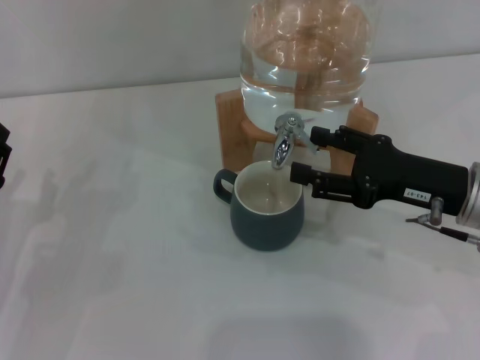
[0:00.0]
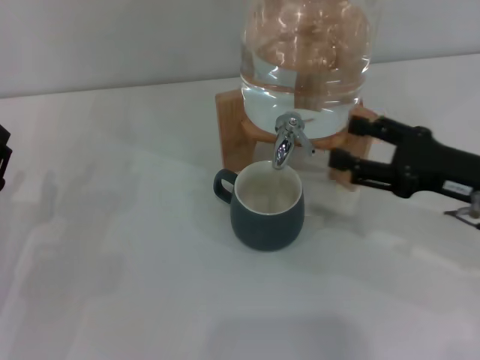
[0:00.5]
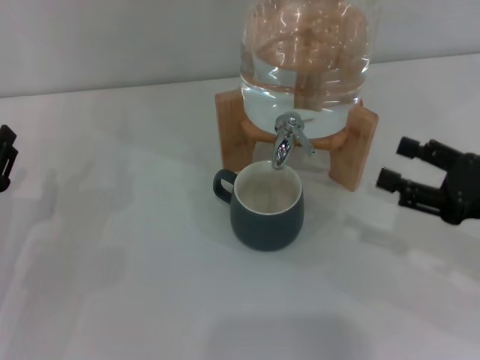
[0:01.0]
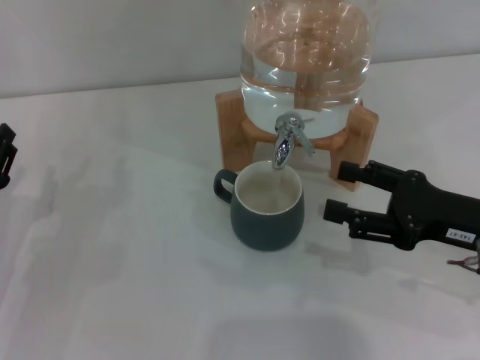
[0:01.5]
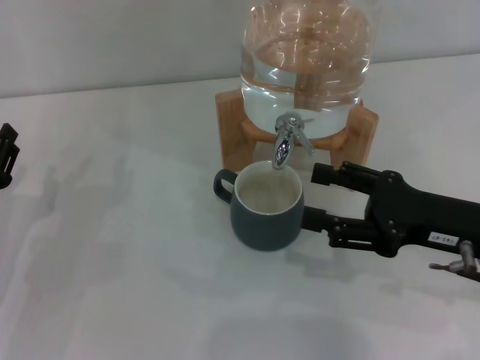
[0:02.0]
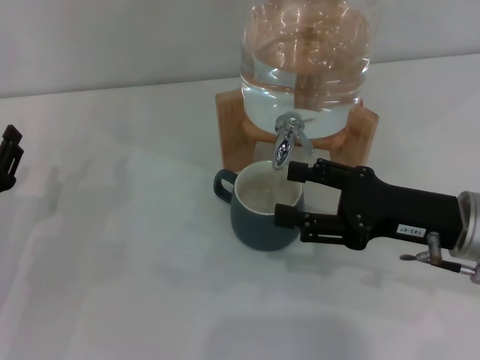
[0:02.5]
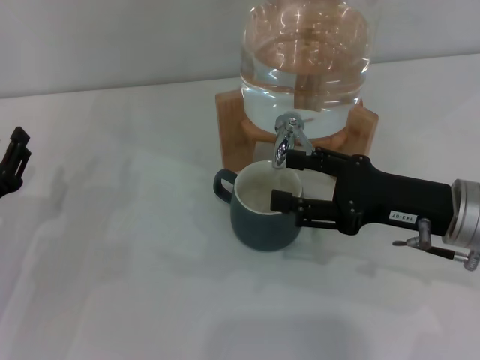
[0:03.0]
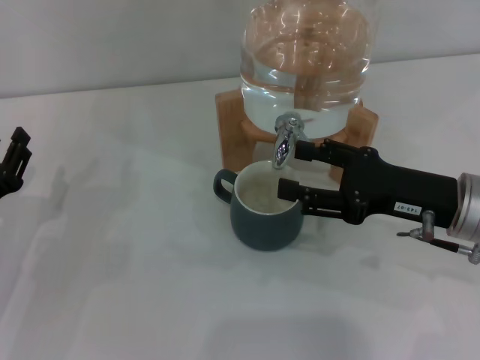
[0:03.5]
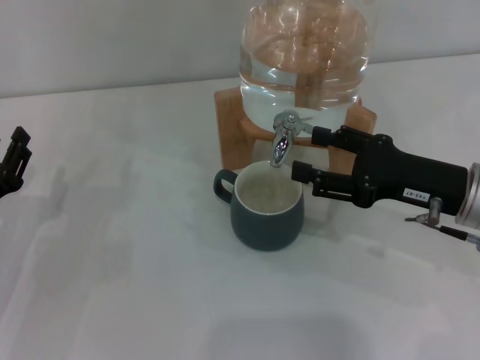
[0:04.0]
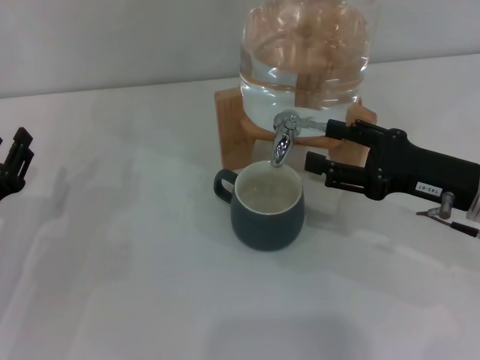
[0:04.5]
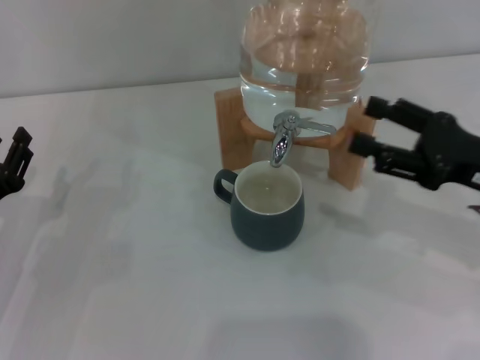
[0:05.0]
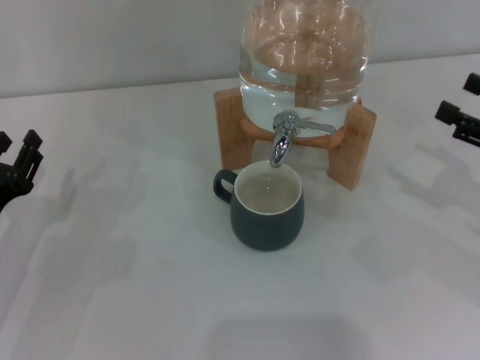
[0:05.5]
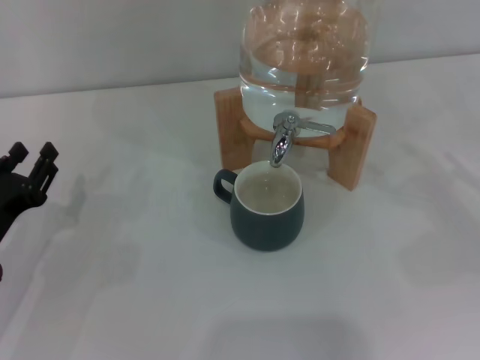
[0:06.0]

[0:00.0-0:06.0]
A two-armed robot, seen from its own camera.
Task of the whole recording: the left gripper pick up the black cup and place it horizontally under the faucet, the right gripper turn on the faucet to fill the cup, and then turn off the faucet.
Step, 0:00.5 to 0:04.5: Close the dispenser valve with the right gripper.
0:02.0 to 0:04.0: The grippers stay close to where they were, moving slightly.
0:04.0 to 0:06.0: The right gripper is displaced to the right by approximately 15 cm.

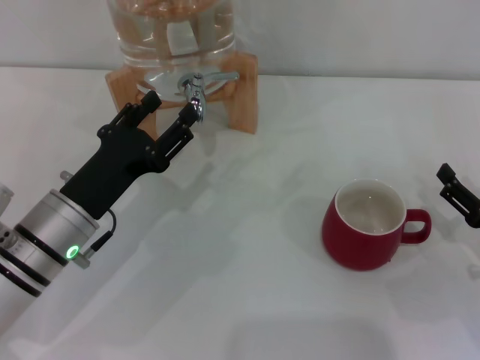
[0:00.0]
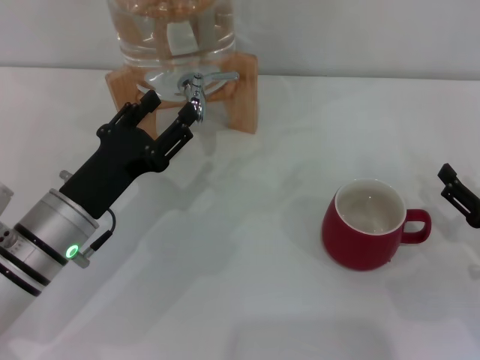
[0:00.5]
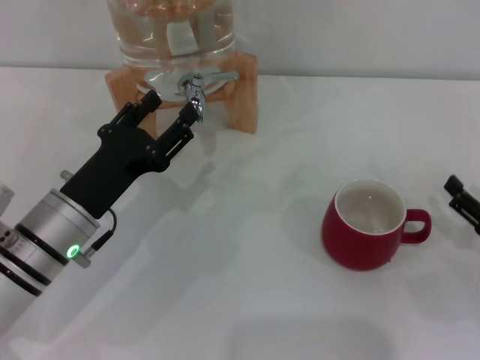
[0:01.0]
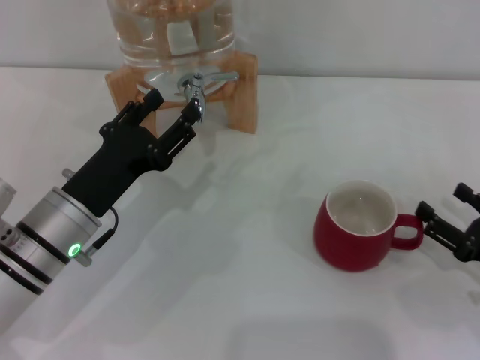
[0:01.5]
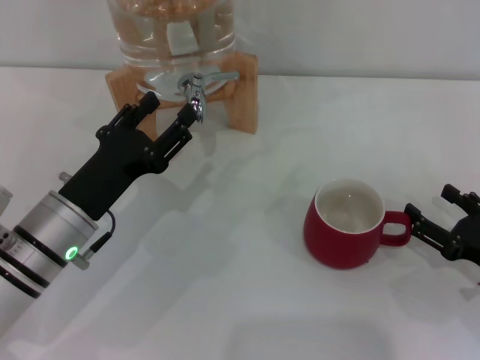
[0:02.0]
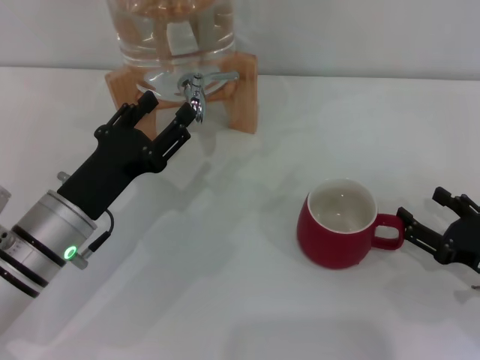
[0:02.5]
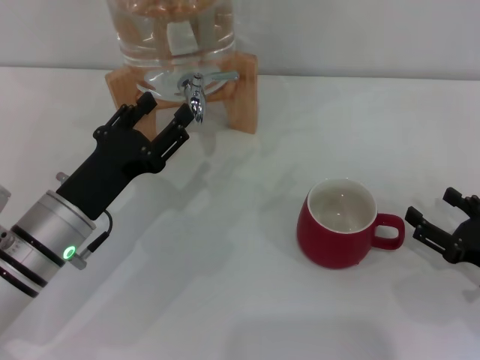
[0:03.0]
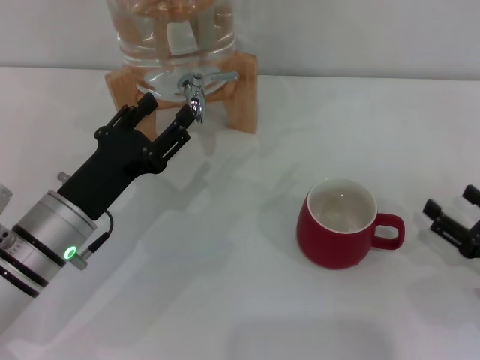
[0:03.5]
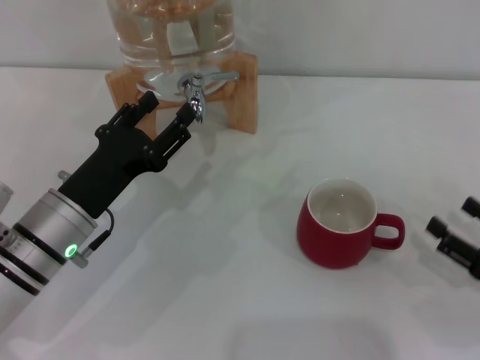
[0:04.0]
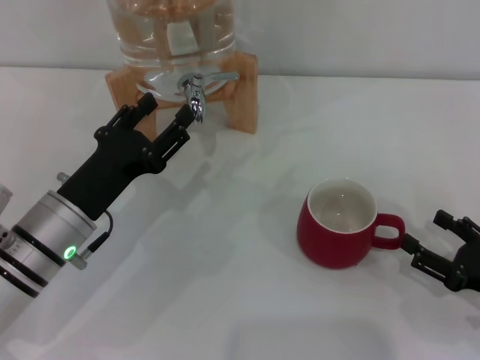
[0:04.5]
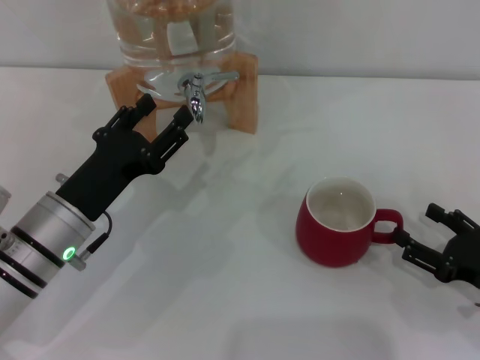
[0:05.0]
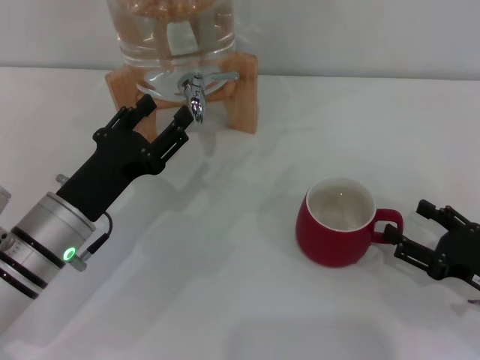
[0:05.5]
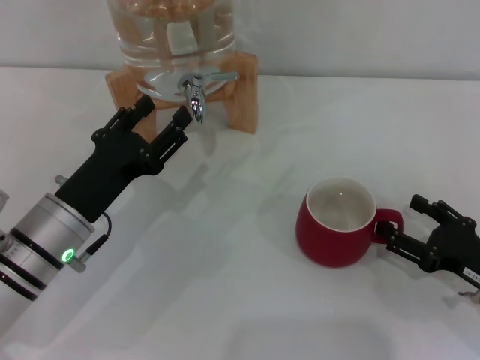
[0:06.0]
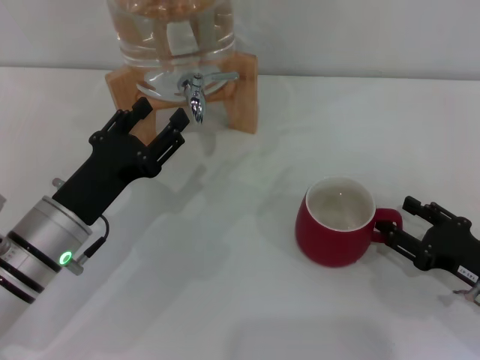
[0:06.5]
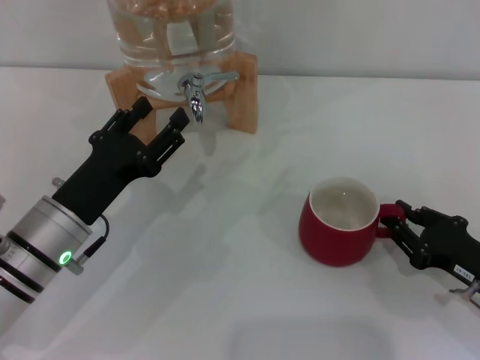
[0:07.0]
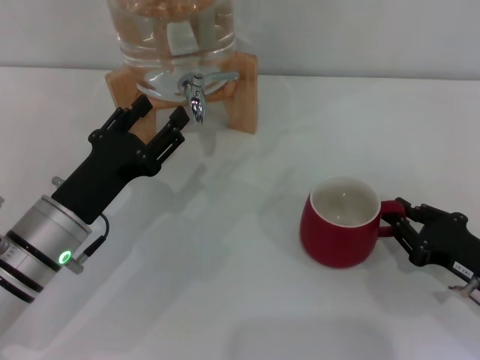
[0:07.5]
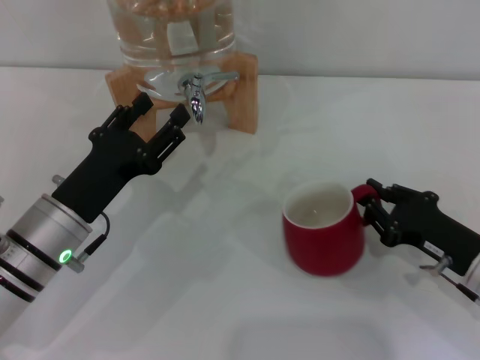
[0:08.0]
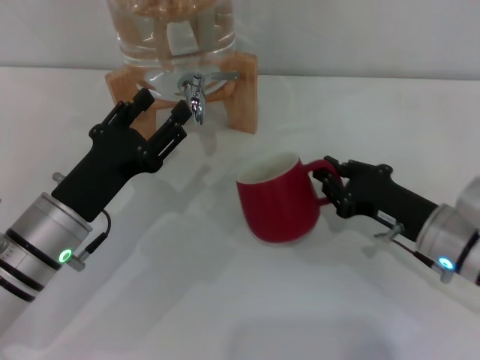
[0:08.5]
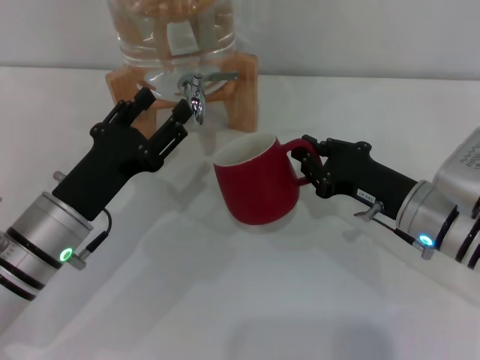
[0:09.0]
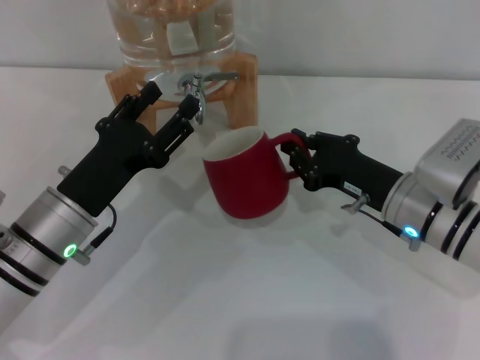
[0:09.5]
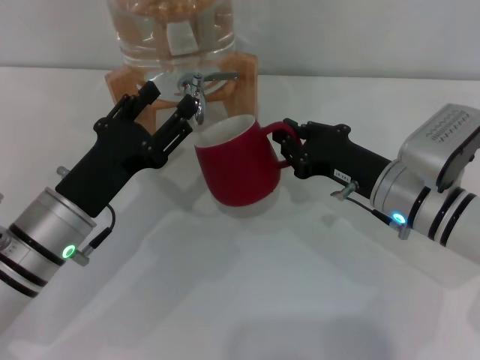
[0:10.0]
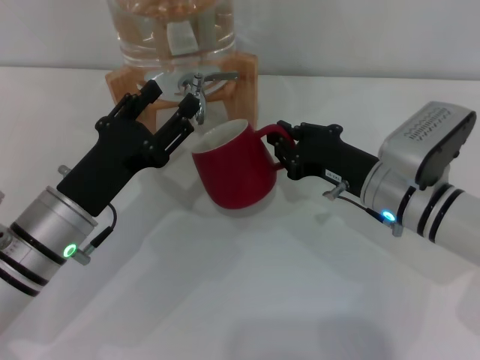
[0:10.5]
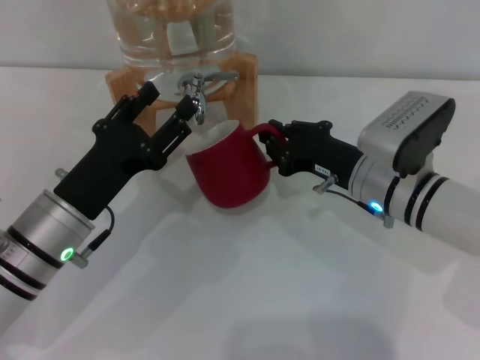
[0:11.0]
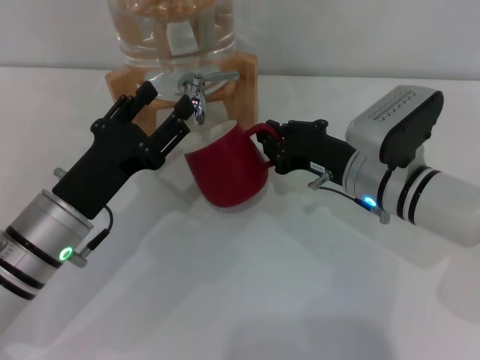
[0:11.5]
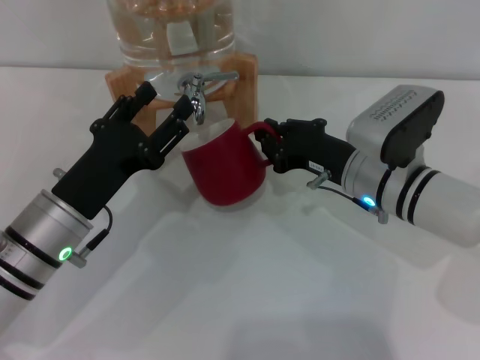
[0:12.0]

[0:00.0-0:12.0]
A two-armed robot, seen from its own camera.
Task of the whole recording: the right gripper pick up the red cup and place it horizontally under the faucet, the left gripper turn on the faucet to fill the cup, and then turn off the faucet.
0:00.0 to 0:04.0: The grippers stay close to where they were, moving slightly.
0:04.0 to 0:06.0: The grippers make only small movements.
0:06.0 to 0:08.0: The right gripper closes.
0:08.0 to 0:10.0: The right gripper moves to the left and forward, approximately 10 cm.
0:10.0 to 0:12.0: The grippers make only small movements.

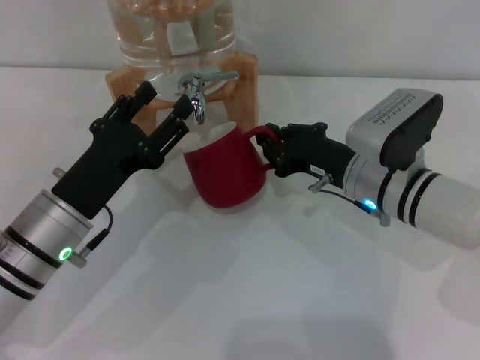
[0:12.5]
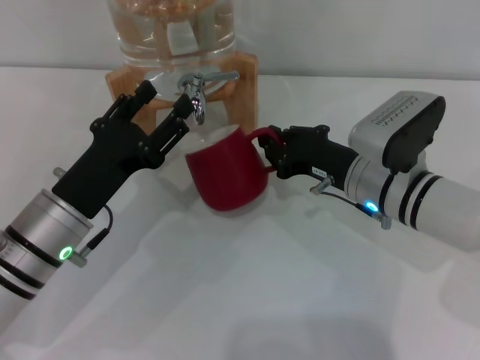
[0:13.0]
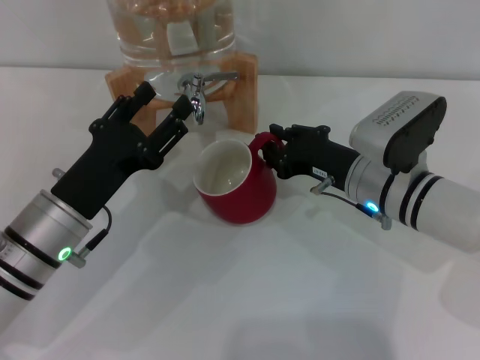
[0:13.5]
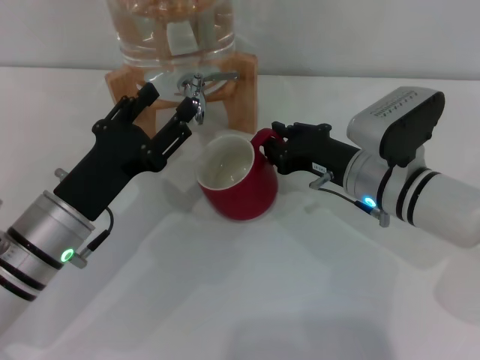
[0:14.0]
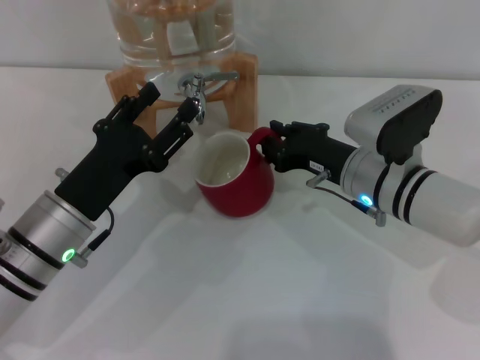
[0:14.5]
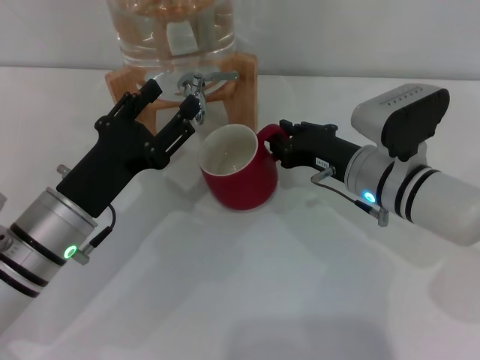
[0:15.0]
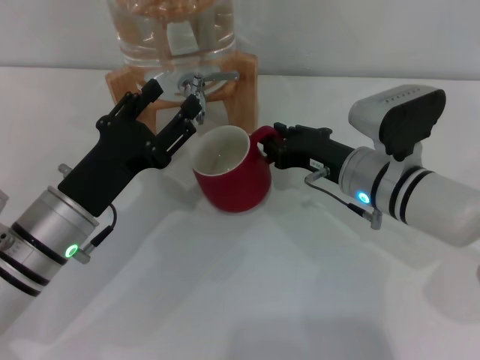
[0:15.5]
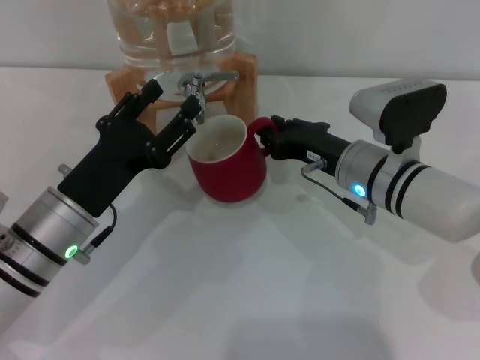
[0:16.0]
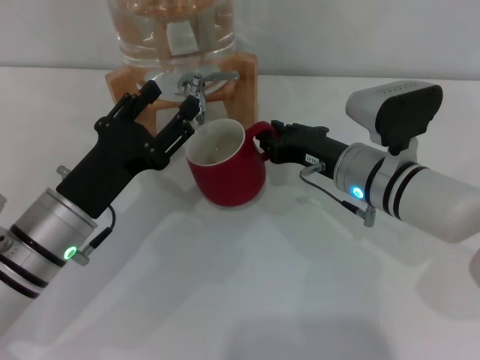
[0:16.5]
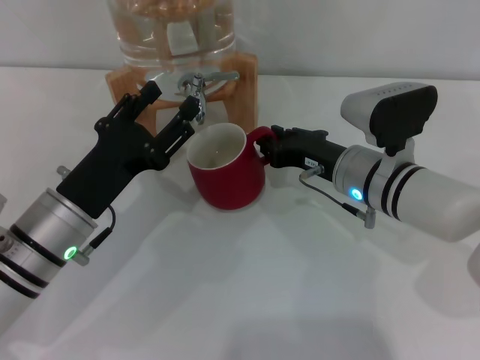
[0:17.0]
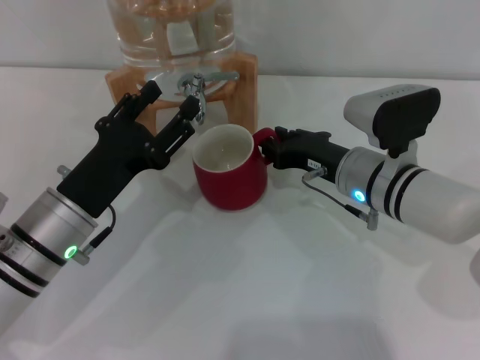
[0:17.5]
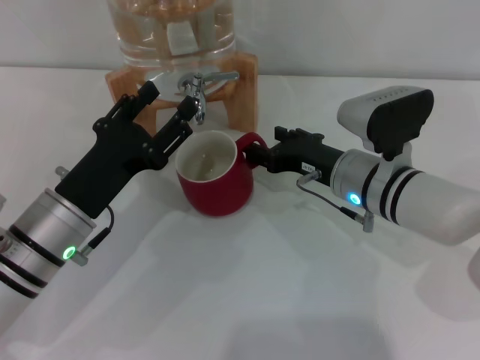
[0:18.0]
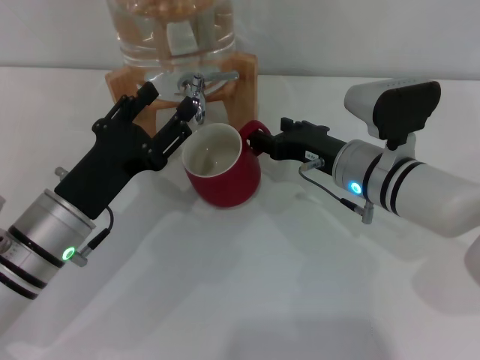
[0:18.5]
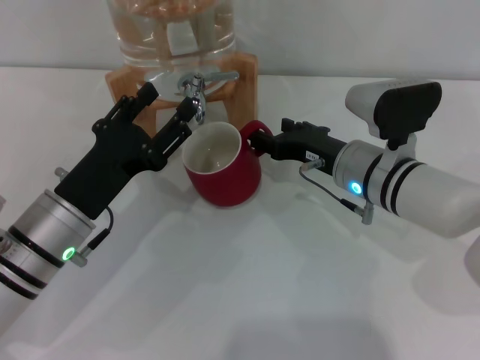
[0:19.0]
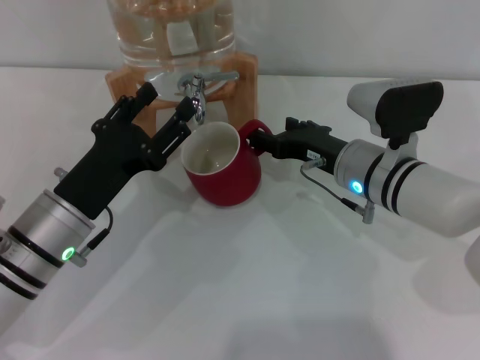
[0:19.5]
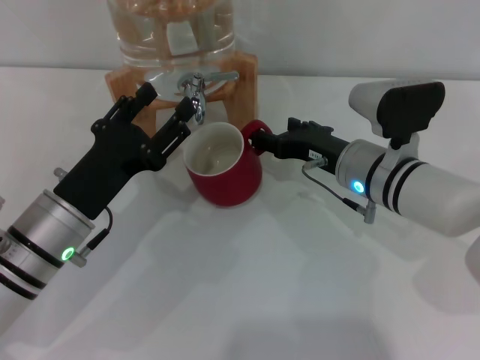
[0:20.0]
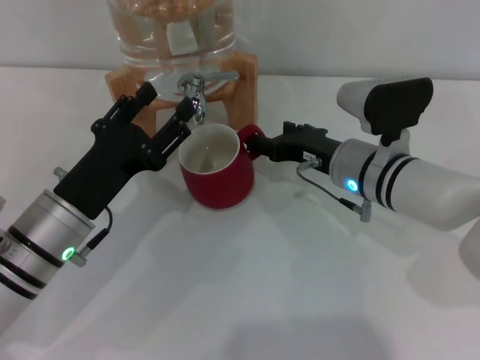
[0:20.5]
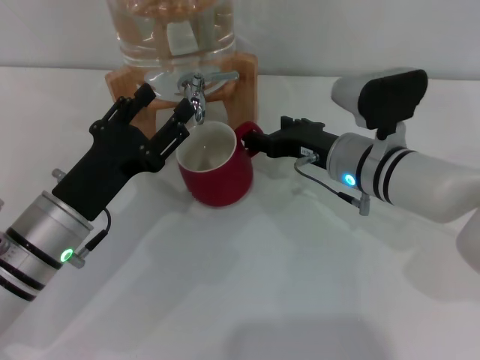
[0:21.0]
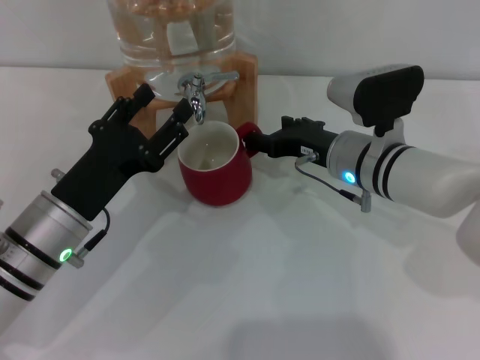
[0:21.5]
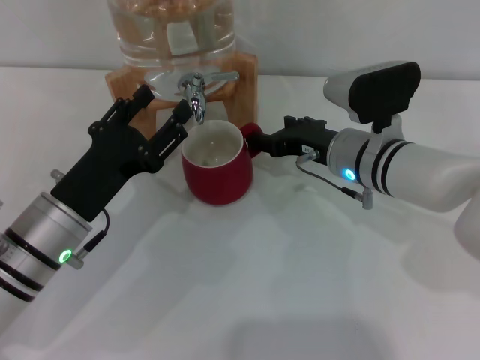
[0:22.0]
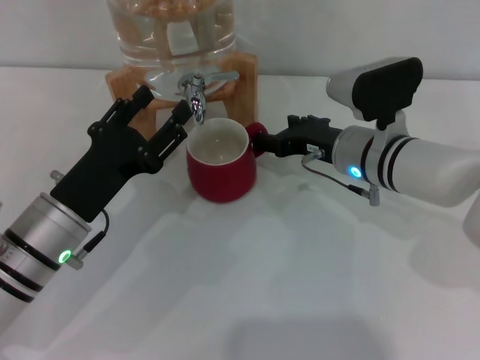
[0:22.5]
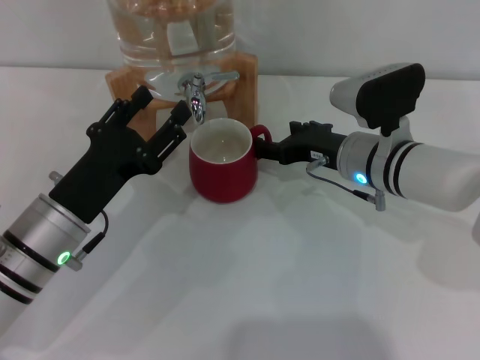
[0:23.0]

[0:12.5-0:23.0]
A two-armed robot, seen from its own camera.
Task of the whole recording: the right gripper pick up the red cup and place it horizontally under the faucet, the left gripper turn on the faucet to fill the cup, and then turn off the faucet.
0:12.5 to 0:16.5: There are only small adjustments of the grippers.
0:16.5 to 0:19.0: The right gripper opens its fingers.
0:19.0 to 0:21.0: Both grippers stay about where they are.
0:21.0 to 0:23.0: There are only small adjustments of the grippers.
